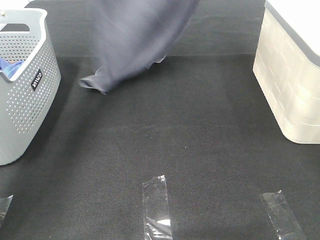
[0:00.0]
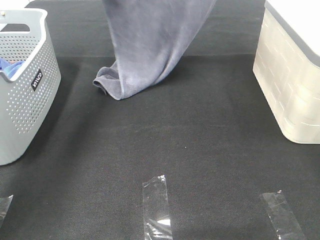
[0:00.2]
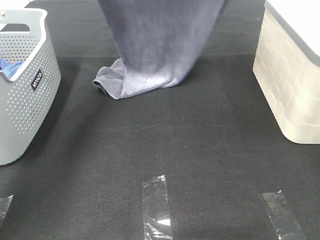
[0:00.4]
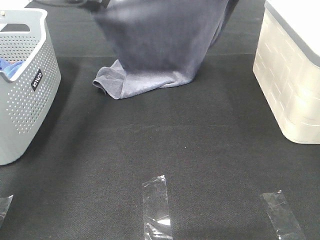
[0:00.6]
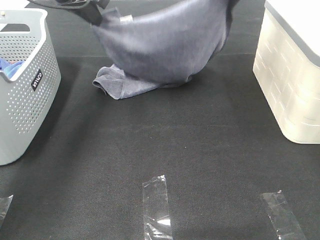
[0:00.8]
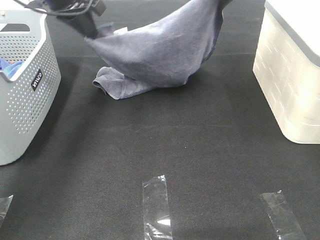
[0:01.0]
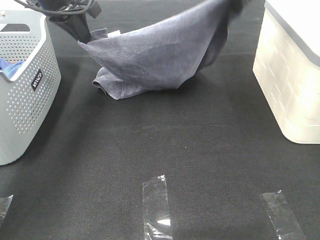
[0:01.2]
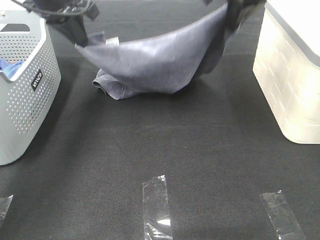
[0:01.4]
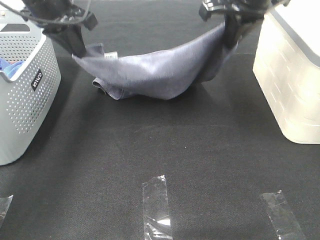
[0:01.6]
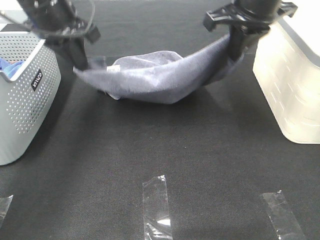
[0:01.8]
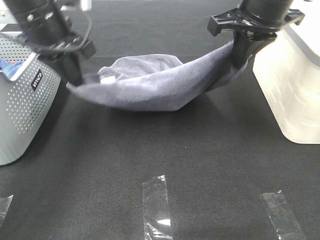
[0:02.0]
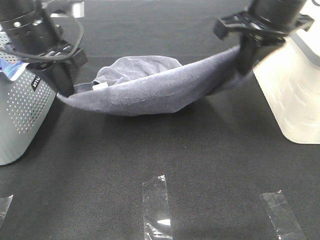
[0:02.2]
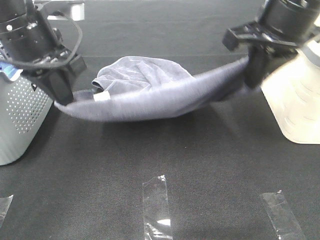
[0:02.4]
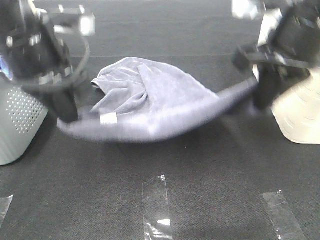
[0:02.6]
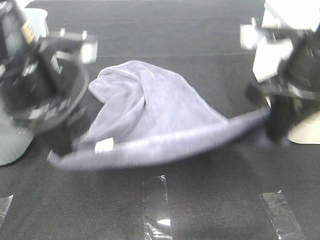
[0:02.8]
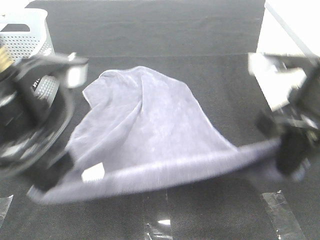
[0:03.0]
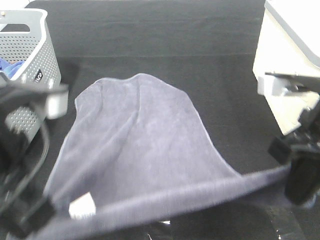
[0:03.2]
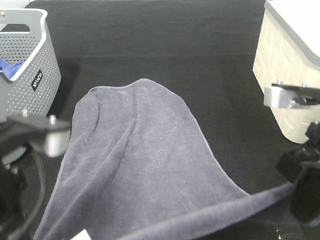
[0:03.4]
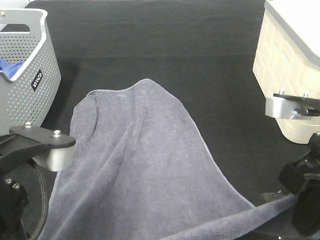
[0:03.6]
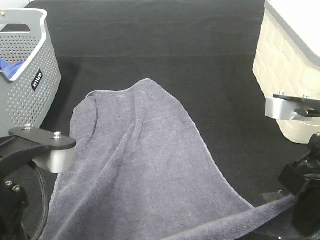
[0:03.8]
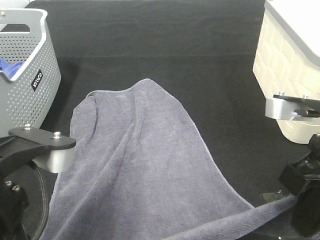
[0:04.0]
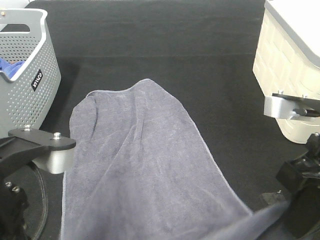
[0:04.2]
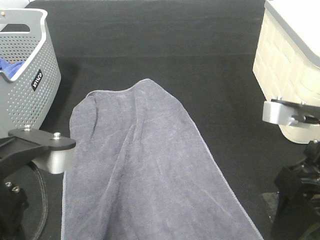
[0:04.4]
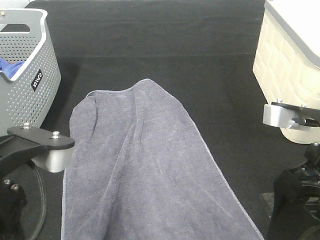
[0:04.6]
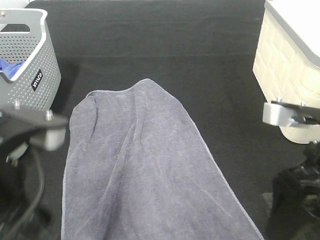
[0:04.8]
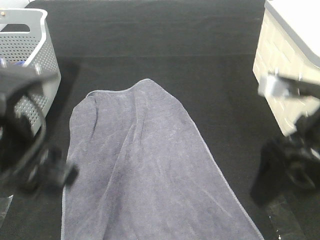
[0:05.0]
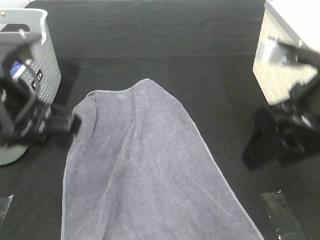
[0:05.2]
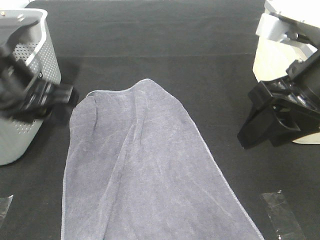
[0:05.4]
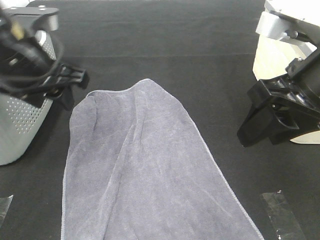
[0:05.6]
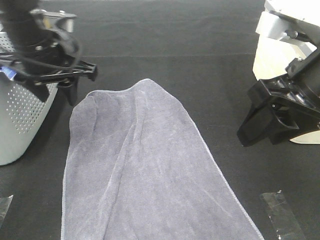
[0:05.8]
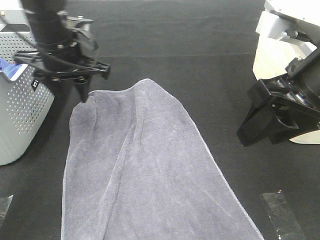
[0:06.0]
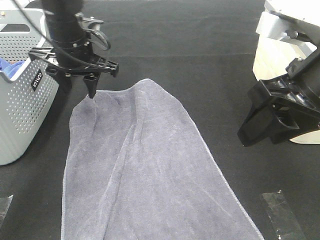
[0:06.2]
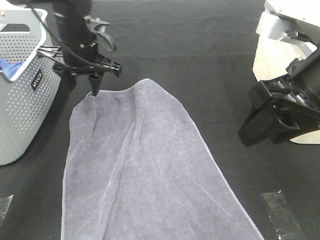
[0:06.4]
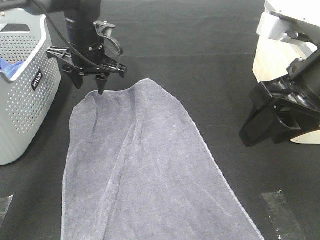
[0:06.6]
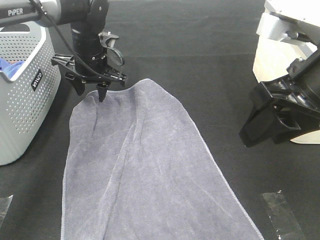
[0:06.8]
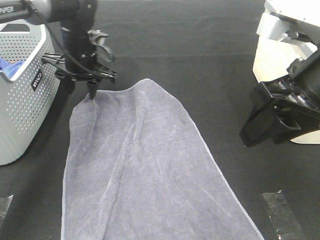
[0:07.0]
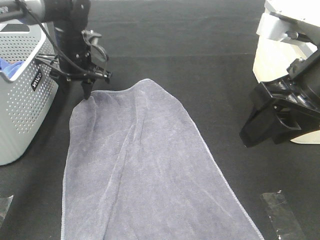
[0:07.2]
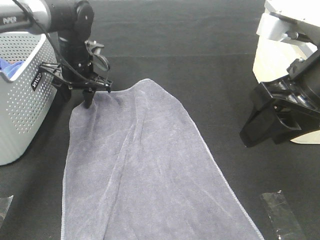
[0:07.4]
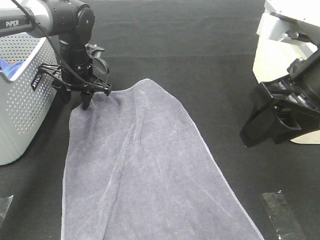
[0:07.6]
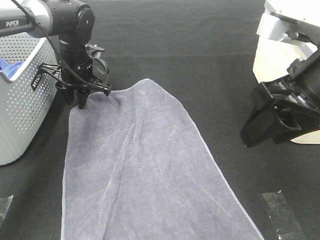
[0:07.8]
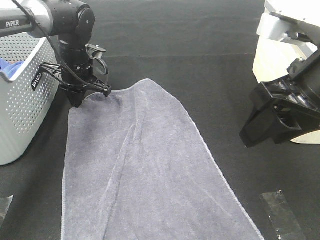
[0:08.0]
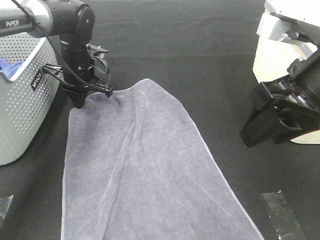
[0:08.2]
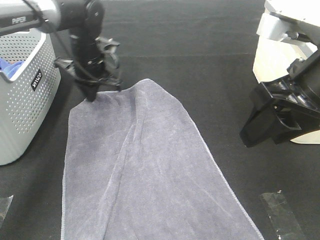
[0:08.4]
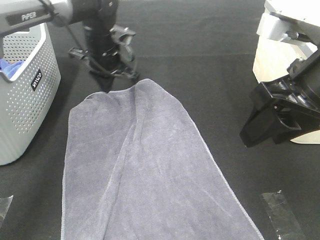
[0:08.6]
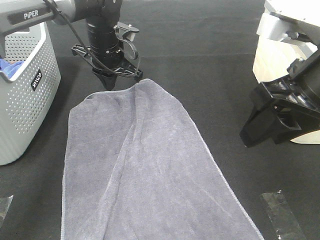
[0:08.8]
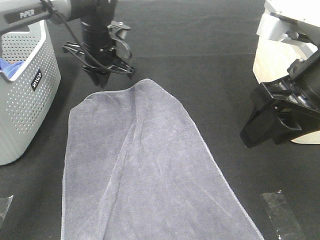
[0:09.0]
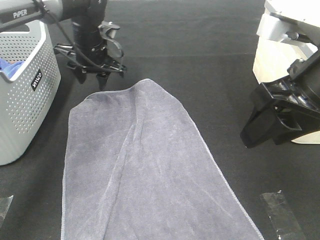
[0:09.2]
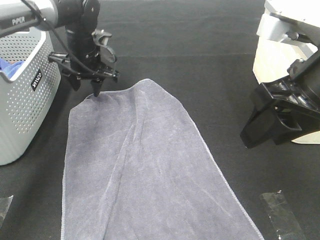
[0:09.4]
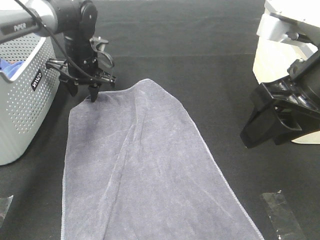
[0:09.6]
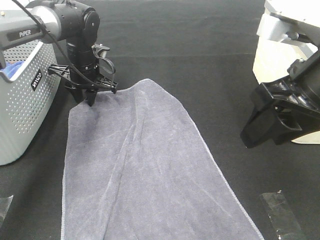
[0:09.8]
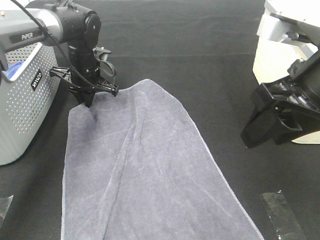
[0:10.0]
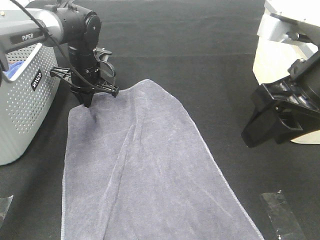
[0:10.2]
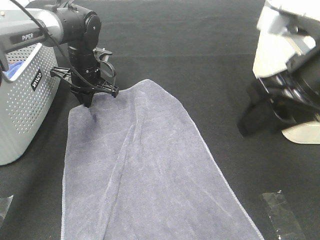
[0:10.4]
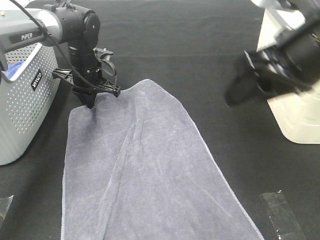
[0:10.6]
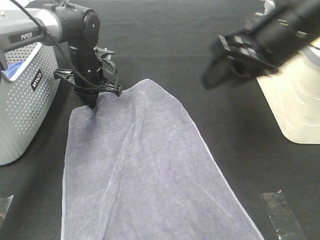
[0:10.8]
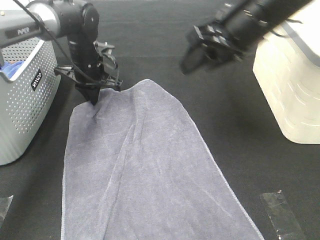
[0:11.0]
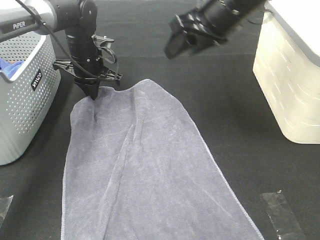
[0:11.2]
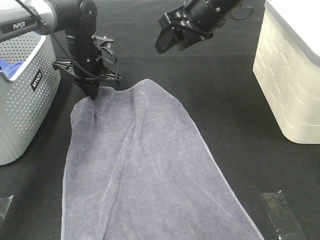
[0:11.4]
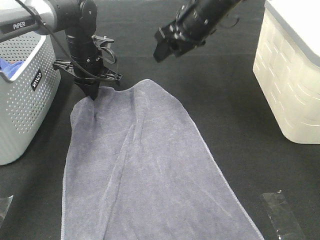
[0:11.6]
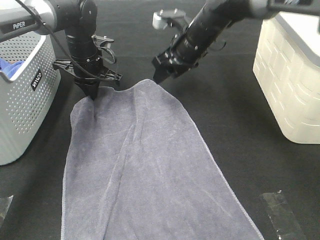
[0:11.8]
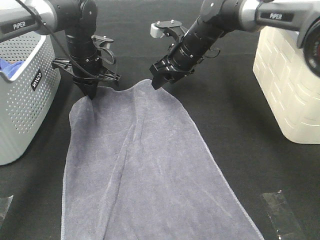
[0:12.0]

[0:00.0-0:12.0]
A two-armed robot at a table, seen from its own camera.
Task of the whole recording: Remove the towel and place it.
0:00.0 to 0:01.6: The left gripper moves backward and downward, about 15 cm, while the right gripper is displaced downward and backward by roughly 15 cm.
0:01.6 to 0:03.0: The two grippers go about 20 cm backward.
0:03.0 to 0:04.4: Both grippers move backward, roughly 5 cm. The right gripper opens its fingers. The left gripper opens its fingers.
0:04.4 to 0:06.0: The right gripper changes place by approximately 5 cm. Meanwhile the left gripper travels forward by some 30 cm.
0:06.0 to 0:07.6: The left gripper is displaced downward and forward by about 15 cm.
0:07.6 to 0:09.0: The left gripper ends up roughly 5 cm from where it was.
0:09.0 to 0:10.4: The left gripper heads downward, covering about 5 cm, and opens, then closes once more.
0:10.4 to 0:12.0: The right gripper shifts about 30 cm forward, downward and to the left.

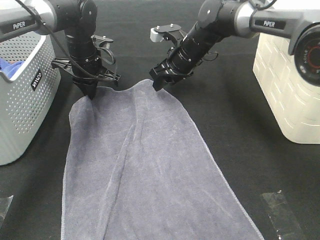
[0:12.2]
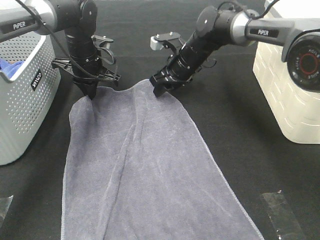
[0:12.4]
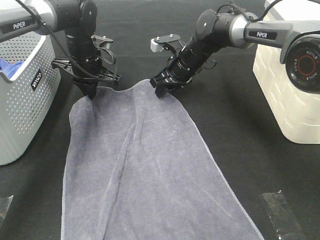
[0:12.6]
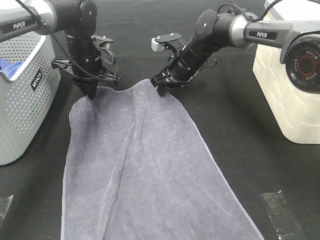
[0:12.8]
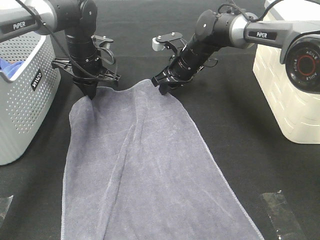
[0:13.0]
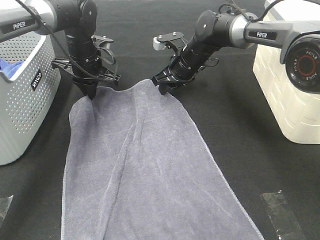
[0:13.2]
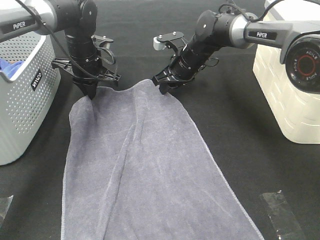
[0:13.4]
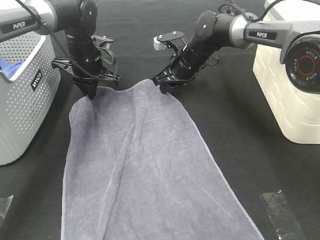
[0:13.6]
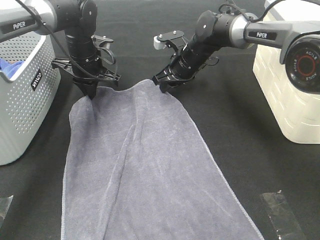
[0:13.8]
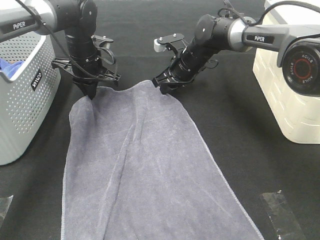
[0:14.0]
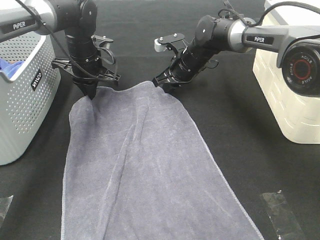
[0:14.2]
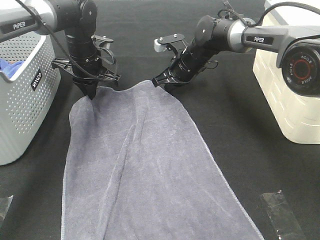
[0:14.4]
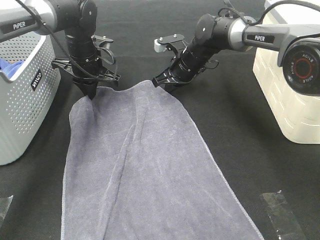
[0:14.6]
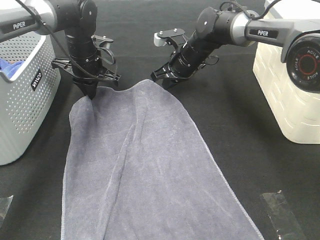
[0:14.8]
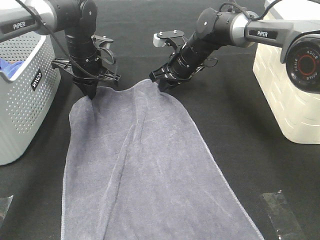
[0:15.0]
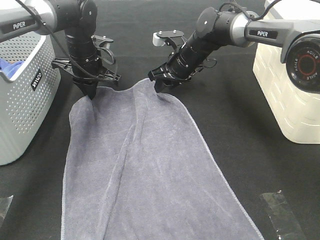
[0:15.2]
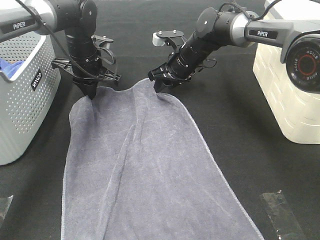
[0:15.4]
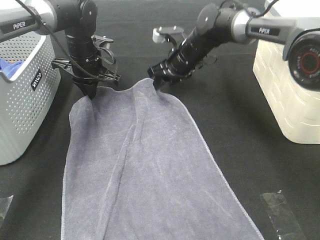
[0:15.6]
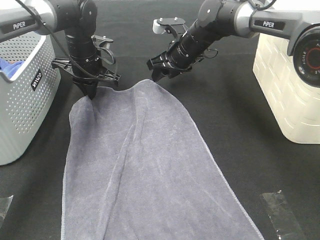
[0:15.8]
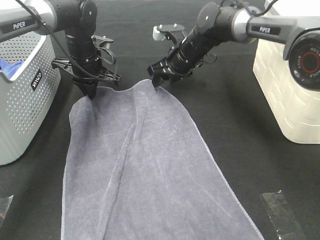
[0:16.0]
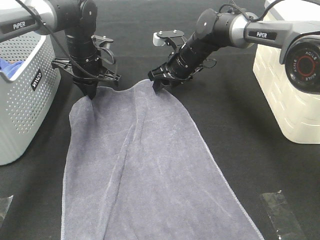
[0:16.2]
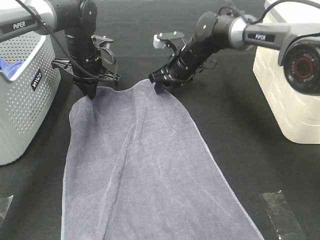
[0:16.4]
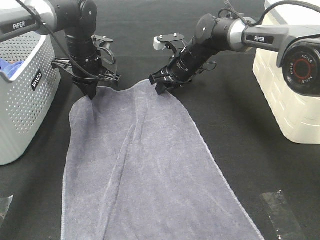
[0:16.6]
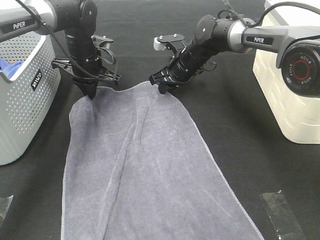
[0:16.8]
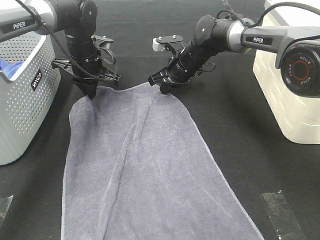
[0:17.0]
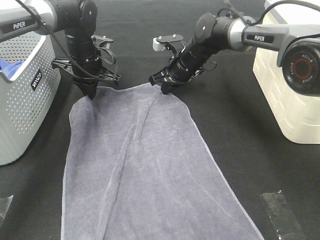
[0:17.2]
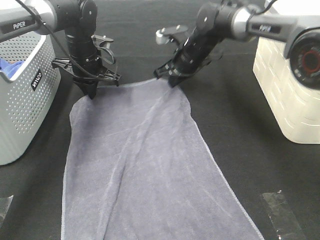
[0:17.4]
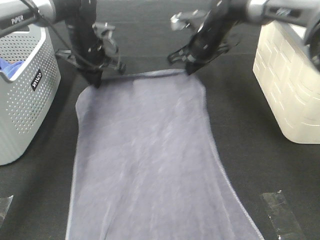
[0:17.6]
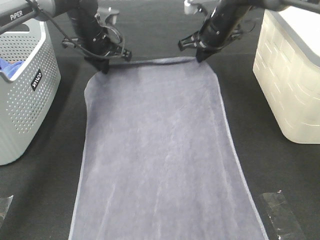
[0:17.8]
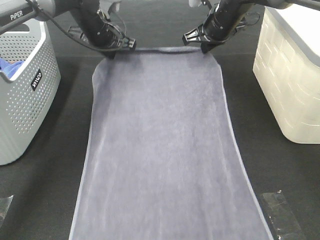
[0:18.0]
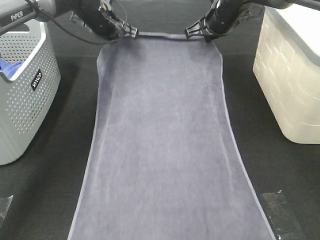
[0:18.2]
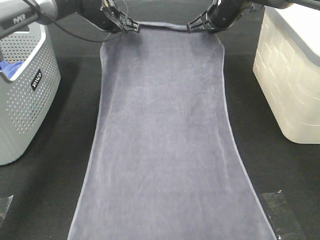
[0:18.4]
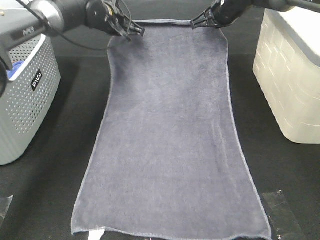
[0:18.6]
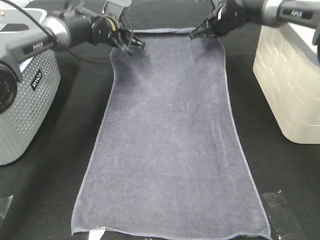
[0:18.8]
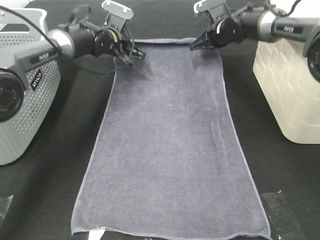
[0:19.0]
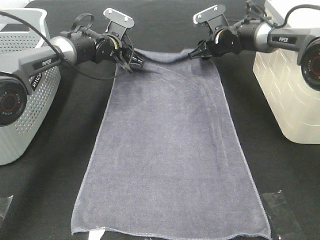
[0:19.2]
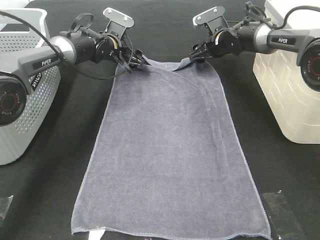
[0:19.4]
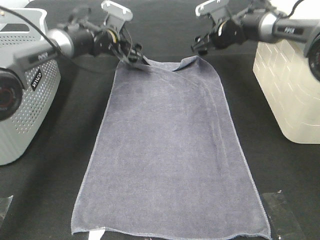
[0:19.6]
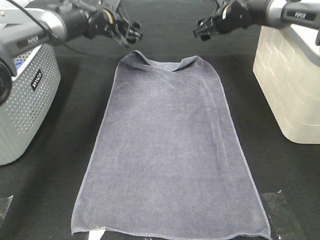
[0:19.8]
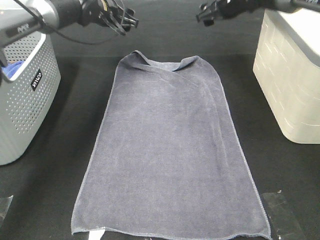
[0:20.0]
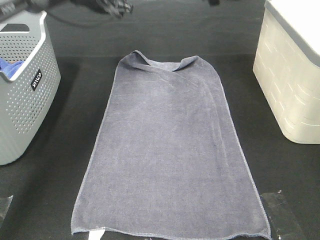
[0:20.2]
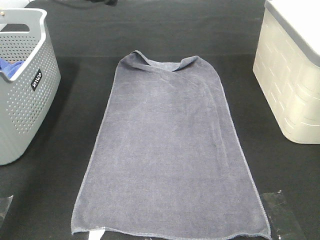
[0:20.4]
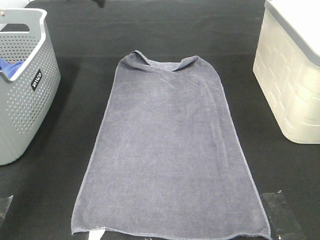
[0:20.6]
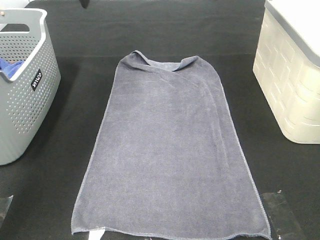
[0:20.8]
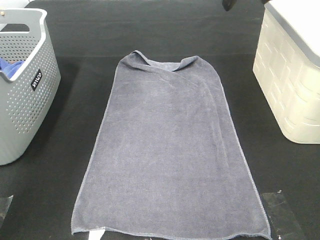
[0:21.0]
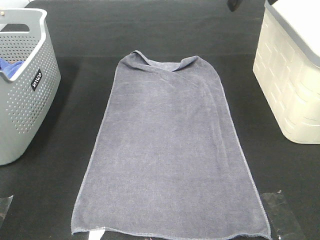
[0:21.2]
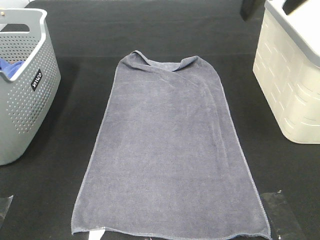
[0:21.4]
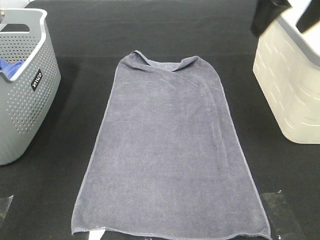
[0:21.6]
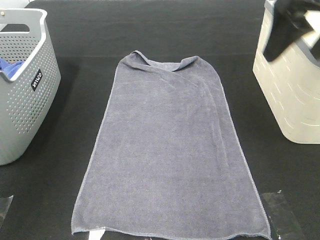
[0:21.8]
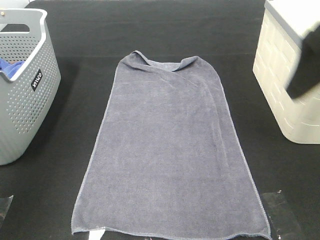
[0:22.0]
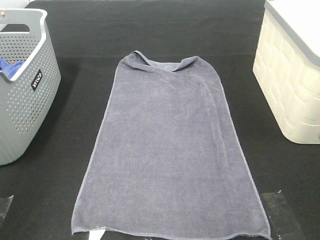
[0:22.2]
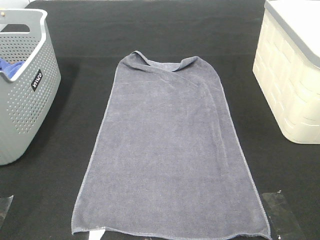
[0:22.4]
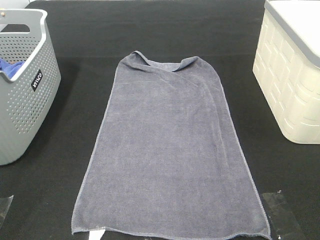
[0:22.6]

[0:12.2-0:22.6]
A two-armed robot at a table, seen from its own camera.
Task of the whole recording: Remove the towel and place it.
0:12.2 to 0:13.6: The grippers stay close to where they were, moving slightly.
0:13.6 to 0:15.2: The right gripper closes and opens again.
0:15.2 to 0:16.6: The grippers stay close to where they were, moving slightly.
0:16.6 to 0:18.2: The right gripper moves upward and to the right, roughly 15 cm, and closes. Meanwhile the left gripper is displaced upward and forward by some 10 cm.
0:18.2 to 0:19.6: The two grippers go roughly 5 cm downward. The right gripper opens its fingers, while the left gripper opens up.
0:19.6 to 0:21.2: Both grippers travel together upward and backward, roughly 30 cm.
0:21.2 to 0:22.6: Both grippers travel together backward, some 40 cm.
